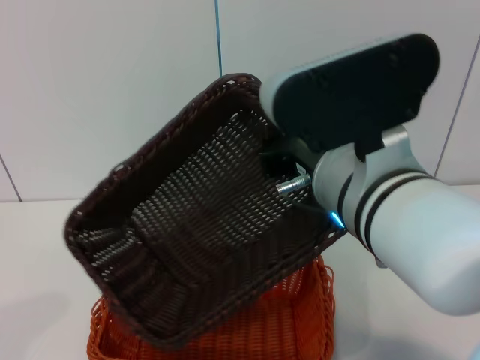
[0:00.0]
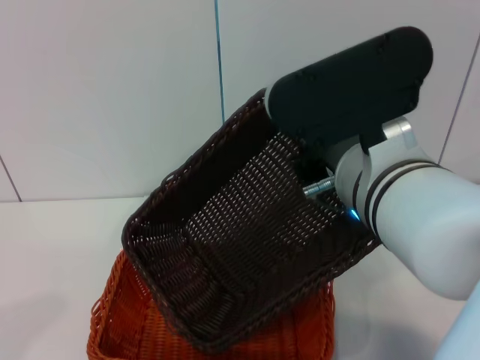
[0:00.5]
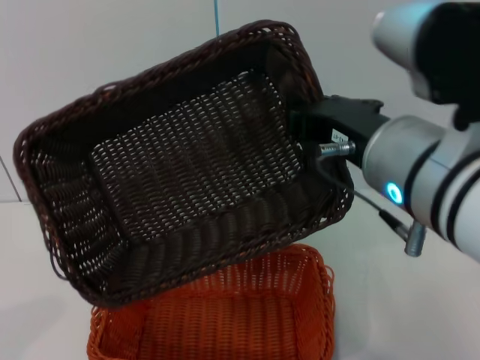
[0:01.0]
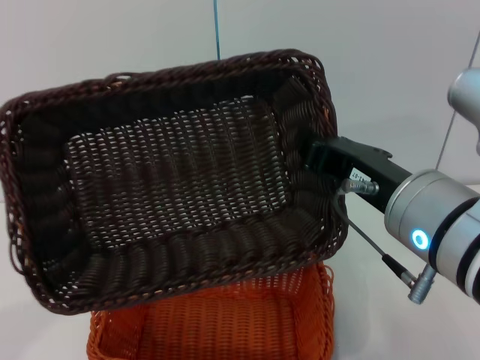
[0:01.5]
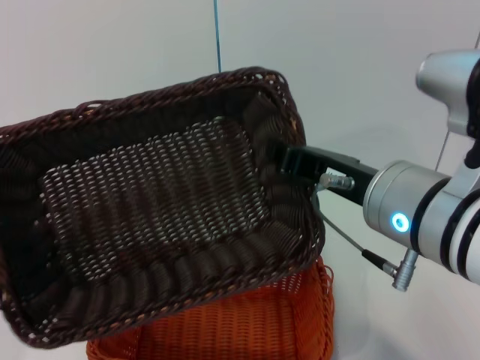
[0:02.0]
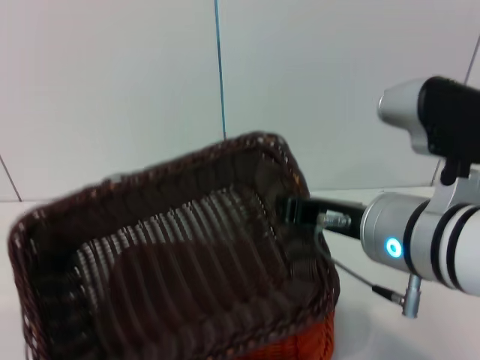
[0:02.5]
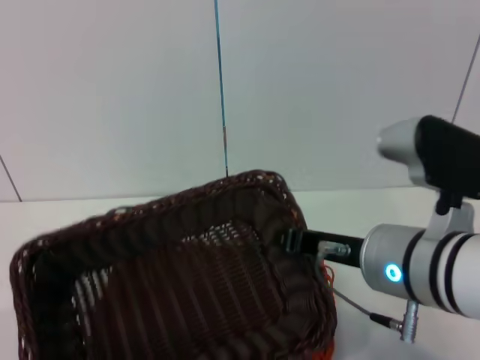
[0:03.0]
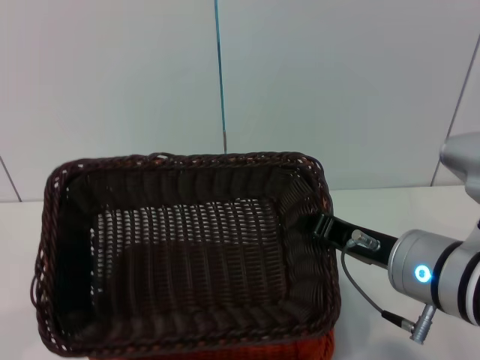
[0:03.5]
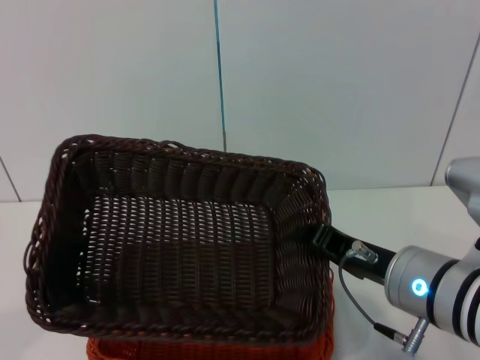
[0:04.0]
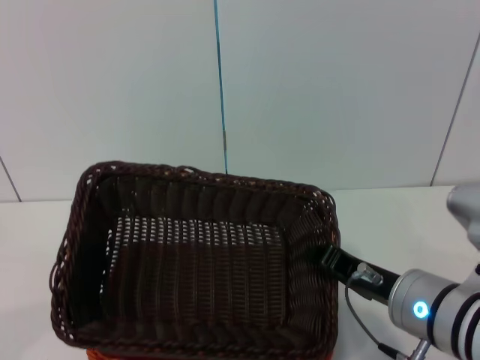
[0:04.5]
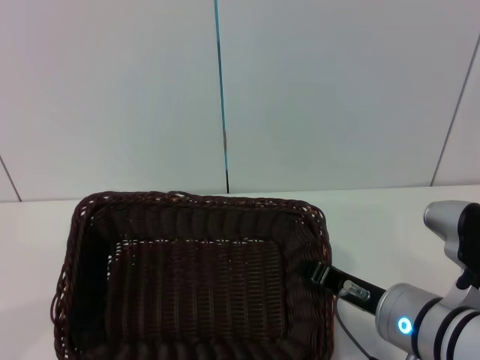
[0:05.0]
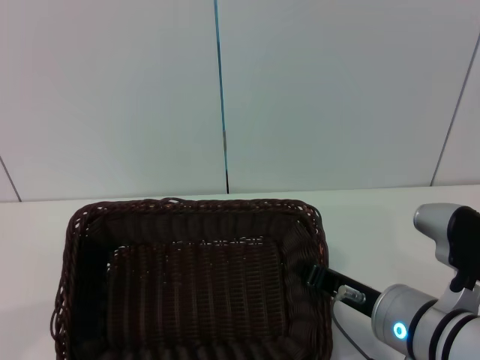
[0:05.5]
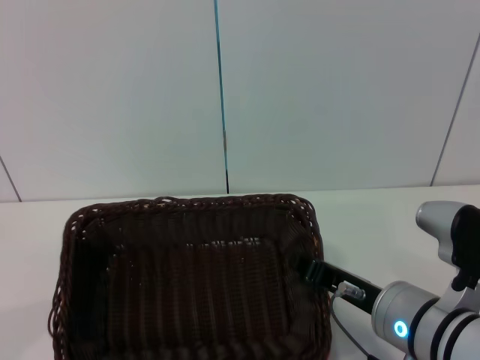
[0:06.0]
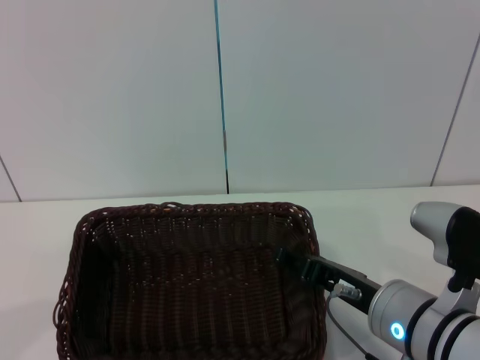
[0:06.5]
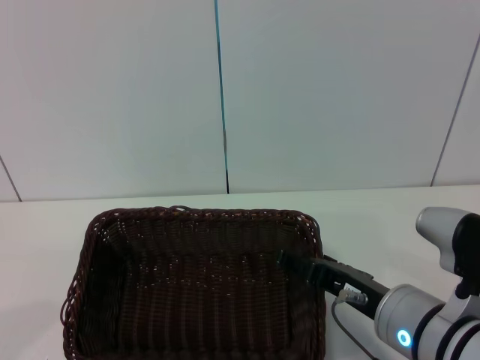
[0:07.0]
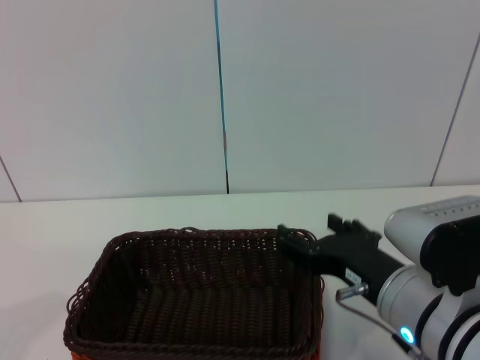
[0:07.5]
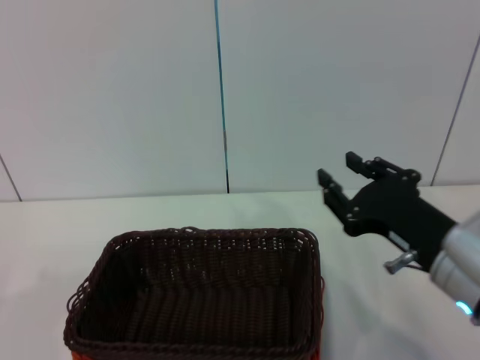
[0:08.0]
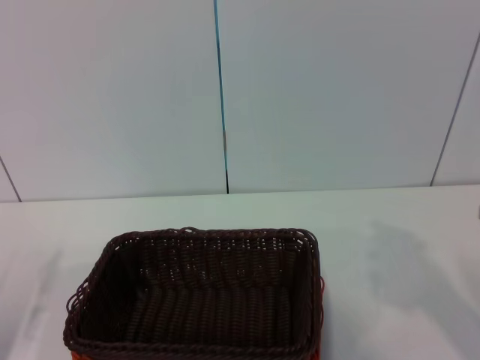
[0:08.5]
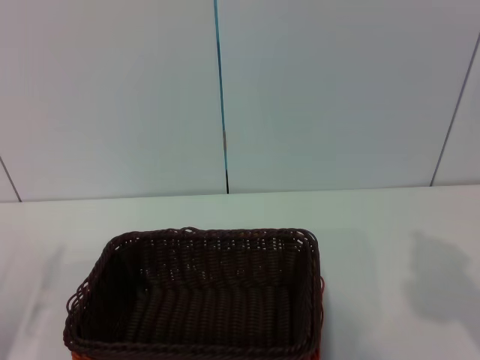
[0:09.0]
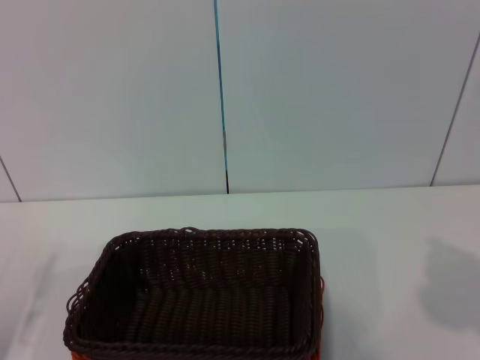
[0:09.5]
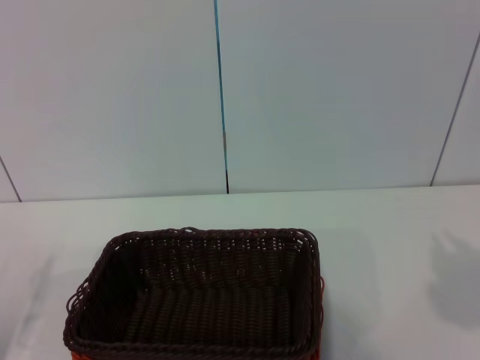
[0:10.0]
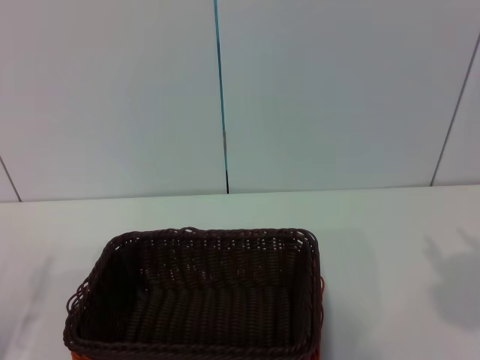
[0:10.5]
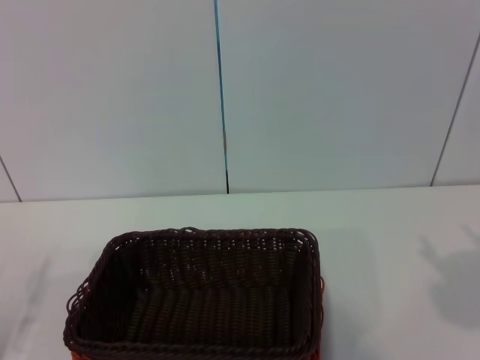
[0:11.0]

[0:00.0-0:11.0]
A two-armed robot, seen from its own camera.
Step, 0:00.0 to 0:06.5: Place the dark basket on the light basket with the right gripper.
0:00.0 to 0:02.0: The right gripper moves to the right, roughly 5 cm.
0:02.0 to 0:03.5: The right gripper goes approximately 5 cm downward.
0:03.5 to 0:05.5: The right gripper moves downward, some 5 cm.
0:05.5 to 0:07.5: The right gripper opens its fingers.
0:07.5 to 0:09.0: The left gripper moves to the right, approximately 5 cm; the right gripper goes roughly 20 cm to the right, and closes up.
